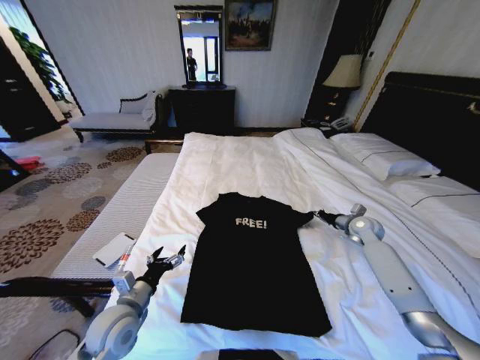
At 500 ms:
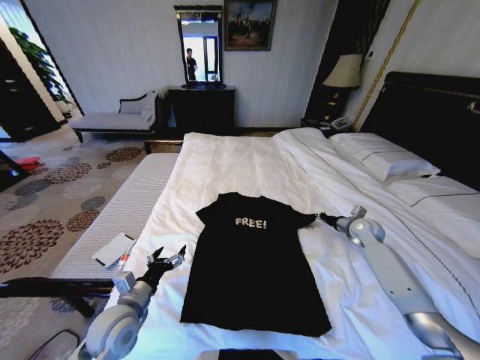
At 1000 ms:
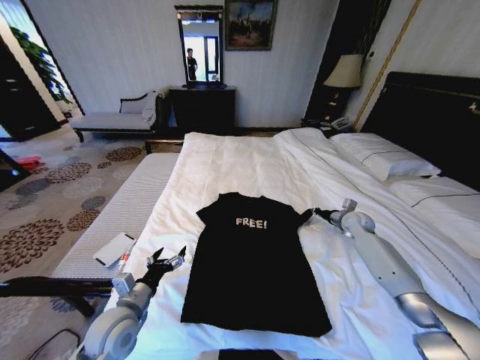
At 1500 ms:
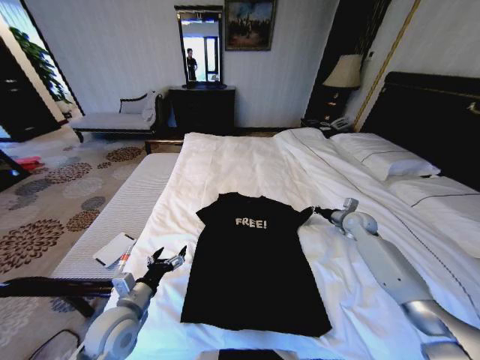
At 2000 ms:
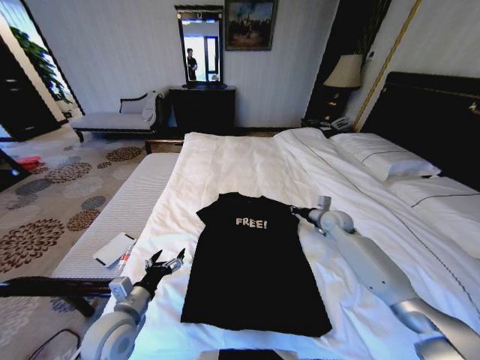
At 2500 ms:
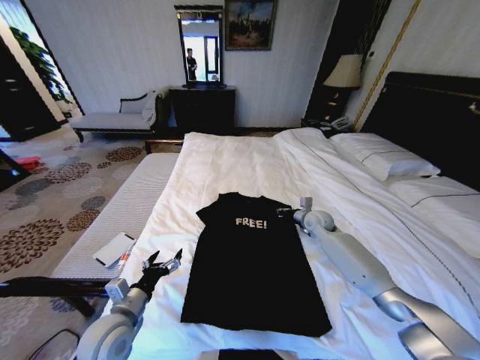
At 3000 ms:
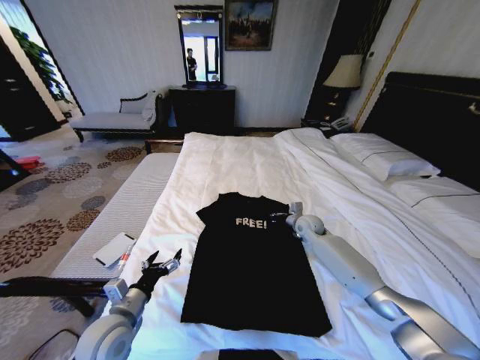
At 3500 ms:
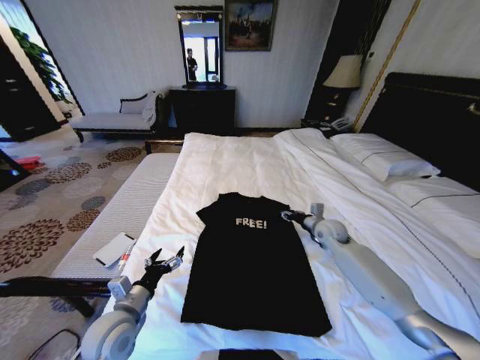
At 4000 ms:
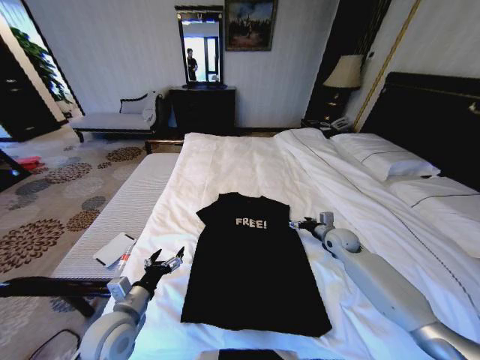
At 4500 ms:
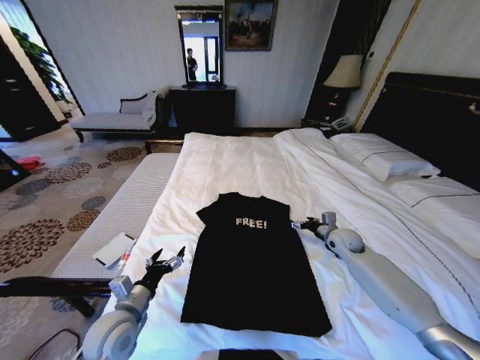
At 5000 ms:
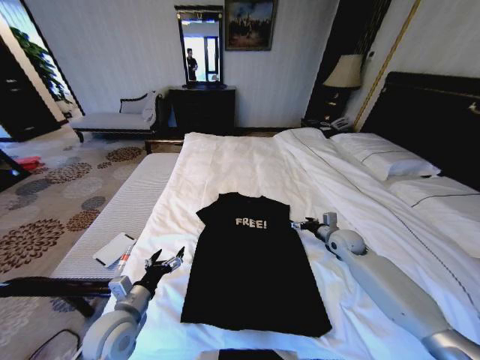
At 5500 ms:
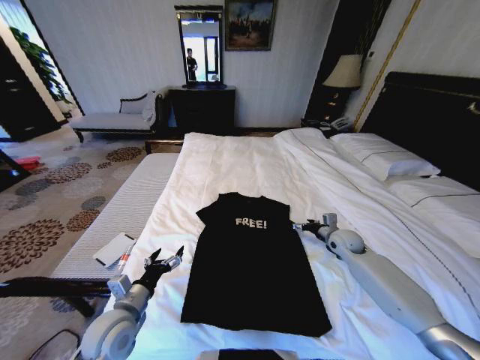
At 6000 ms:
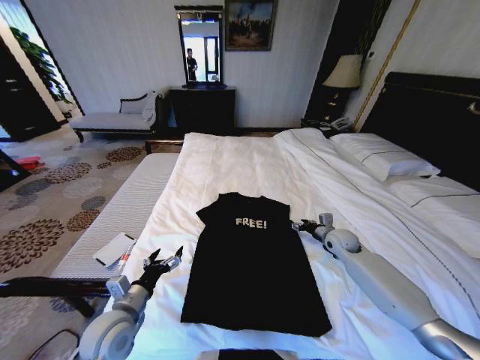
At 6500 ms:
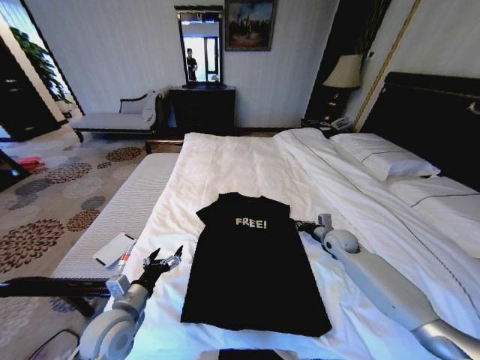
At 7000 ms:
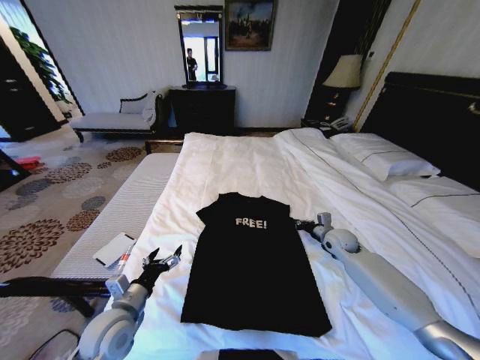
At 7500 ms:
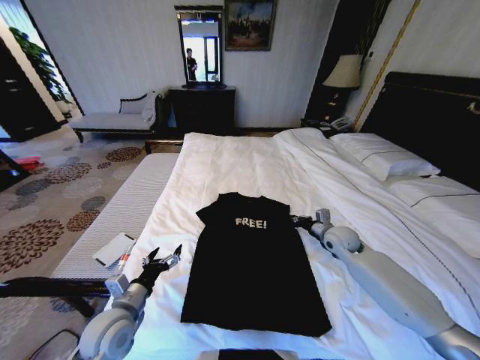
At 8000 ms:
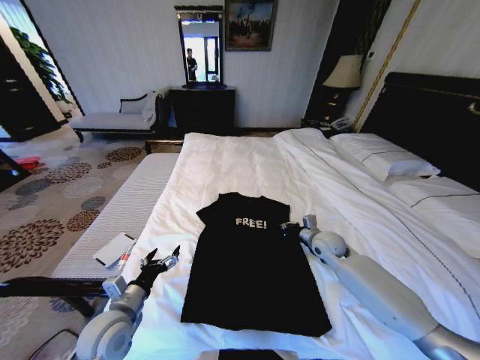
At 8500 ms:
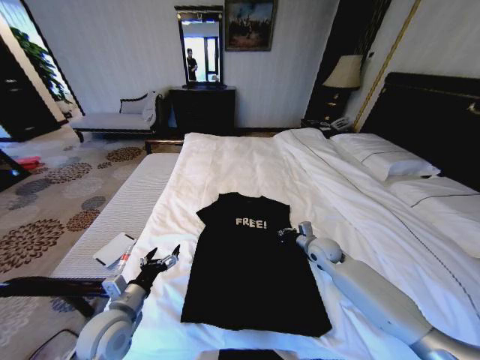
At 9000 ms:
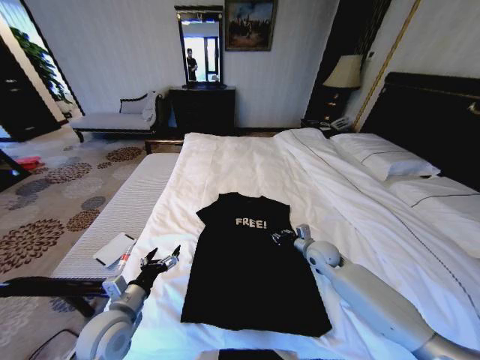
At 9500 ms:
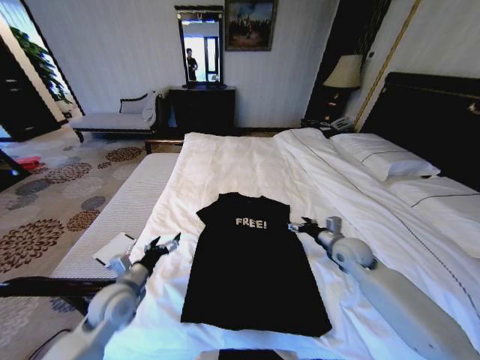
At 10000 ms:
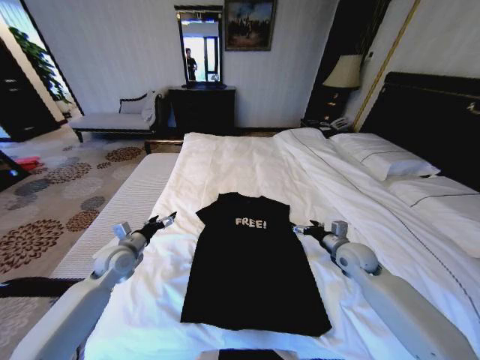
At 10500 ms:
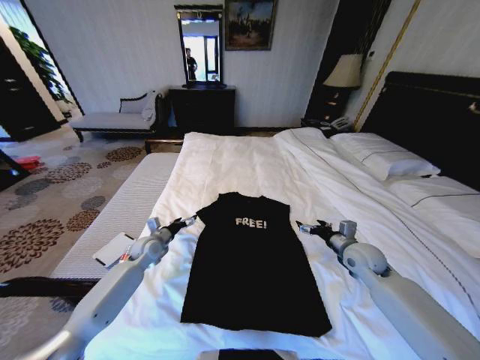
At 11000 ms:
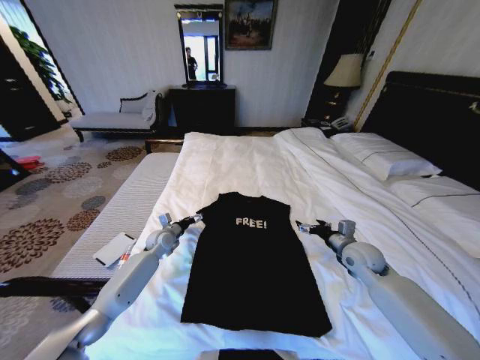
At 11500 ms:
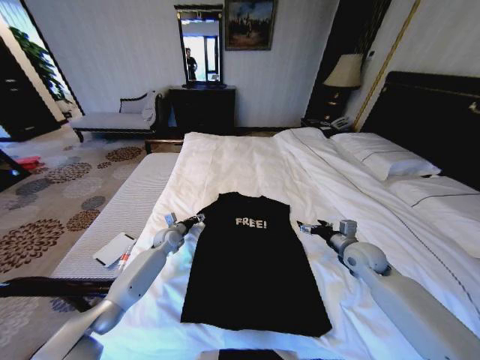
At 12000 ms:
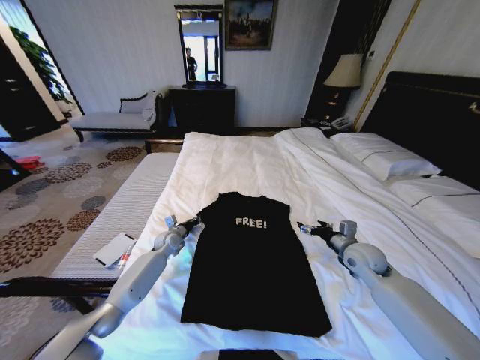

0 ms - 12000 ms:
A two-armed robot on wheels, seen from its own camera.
Task of the whole recording: Fold the clothes on the bed.
0 ms - 2000 ms: The right gripper moves to the left, about 10 cm.
2000 ms - 4000 ms: The right gripper goes to the left and returns, some 5 cm each way, and opens its fingers.
4000 ms - 6000 ms: The grippers make only small movements.
6000 ms - 8000 ms: The right gripper shifts about 5 cm to the left, and closes its fingers.
8000 ms - 10000 ms: The right gripper is displaced backward and to the right by about 5 cm, and opens up. Meanwhile the left gripper is displaced forward by about 15 cm.
10000 ms - 12000 ms: The left gripper moves forward, downward and to the right, about 20 cm, and closes up.

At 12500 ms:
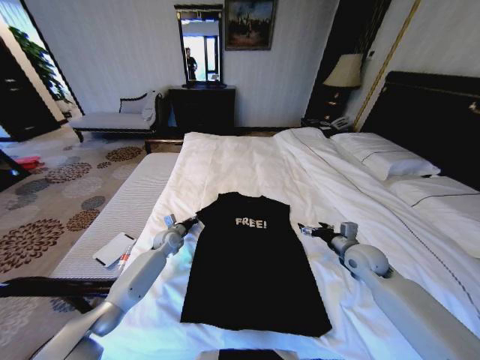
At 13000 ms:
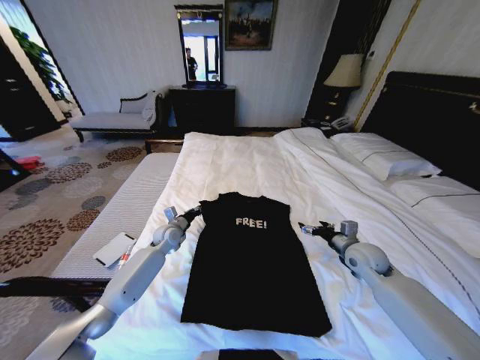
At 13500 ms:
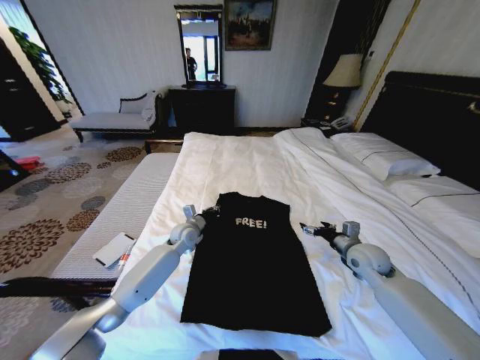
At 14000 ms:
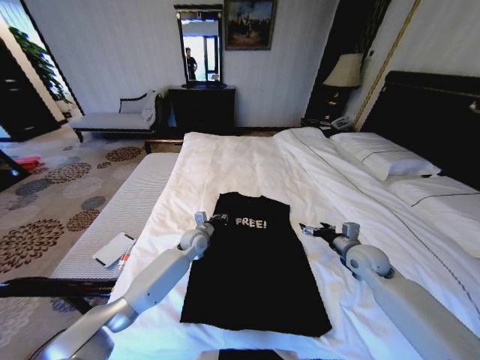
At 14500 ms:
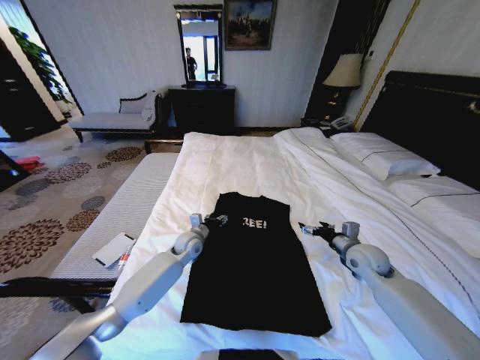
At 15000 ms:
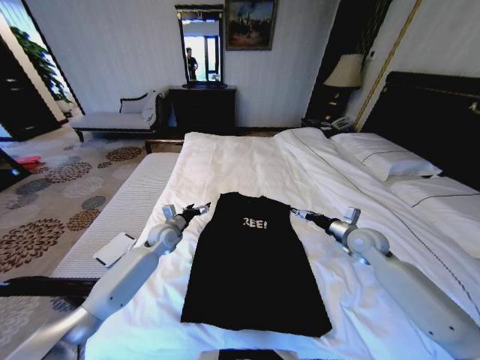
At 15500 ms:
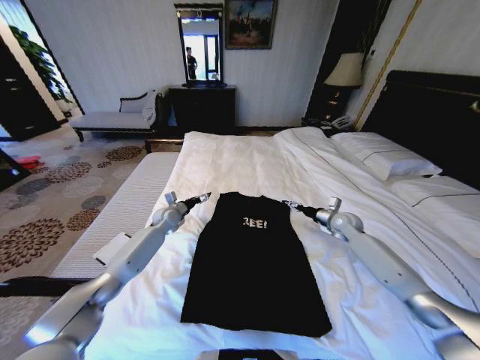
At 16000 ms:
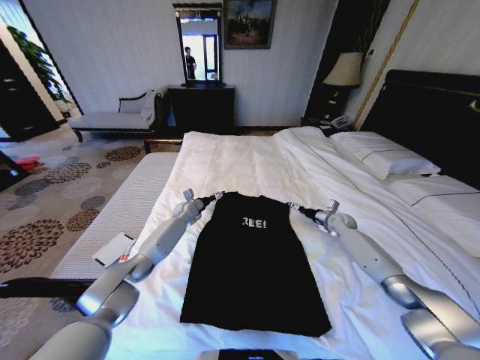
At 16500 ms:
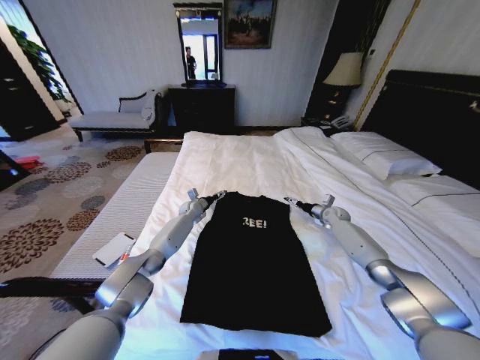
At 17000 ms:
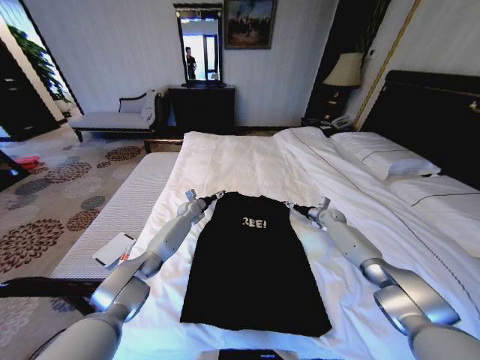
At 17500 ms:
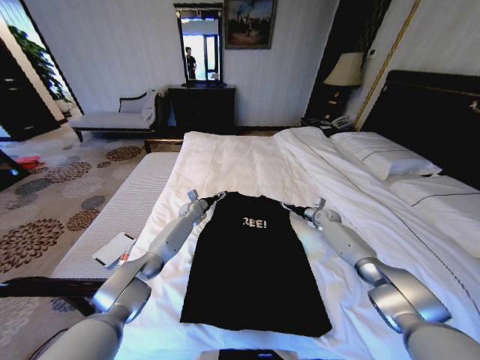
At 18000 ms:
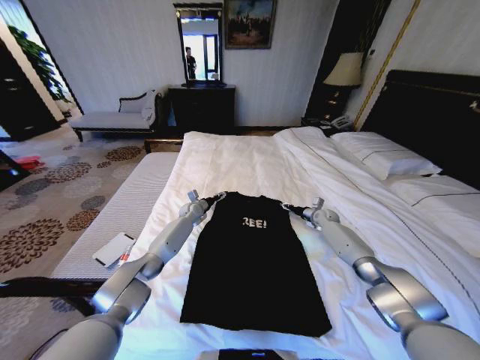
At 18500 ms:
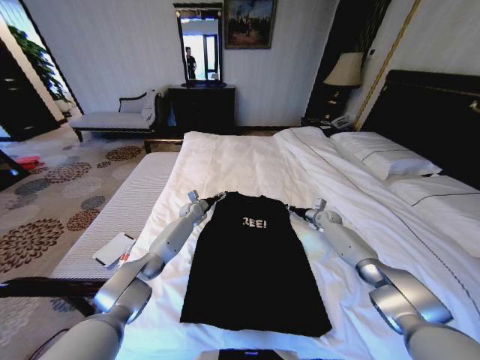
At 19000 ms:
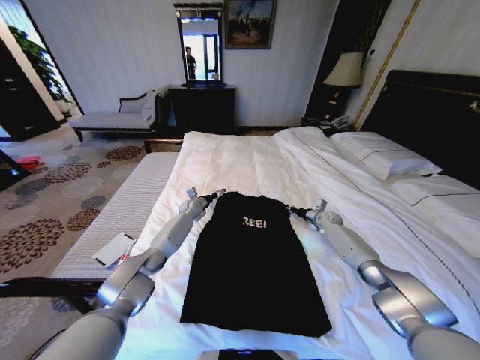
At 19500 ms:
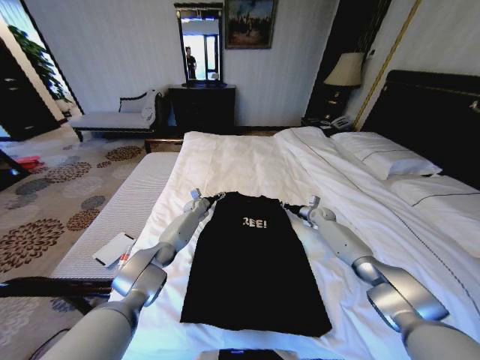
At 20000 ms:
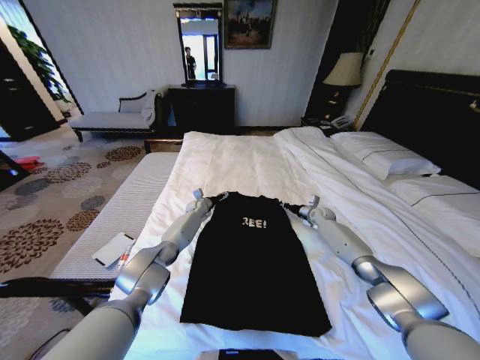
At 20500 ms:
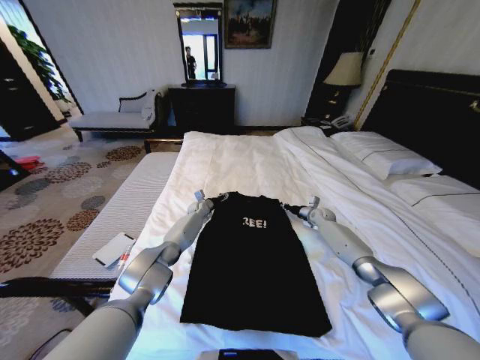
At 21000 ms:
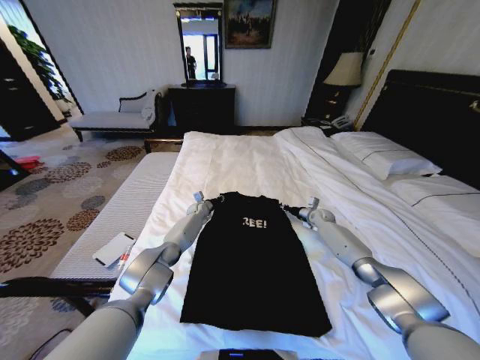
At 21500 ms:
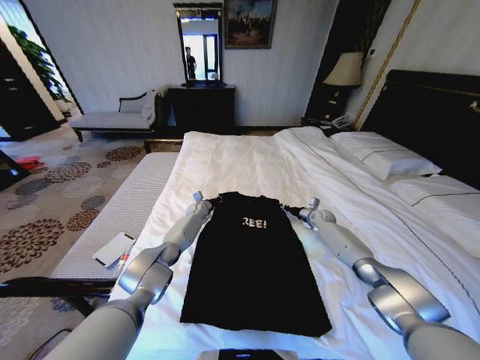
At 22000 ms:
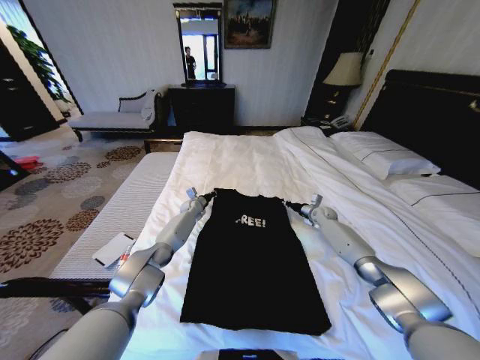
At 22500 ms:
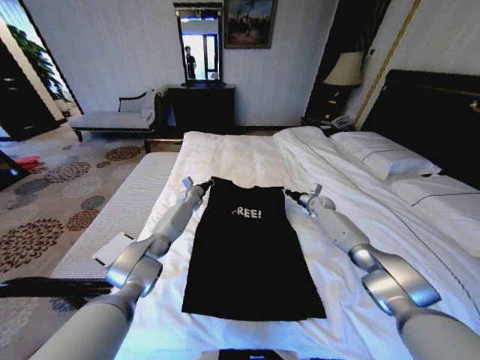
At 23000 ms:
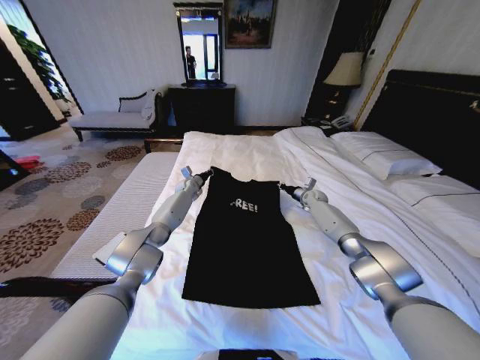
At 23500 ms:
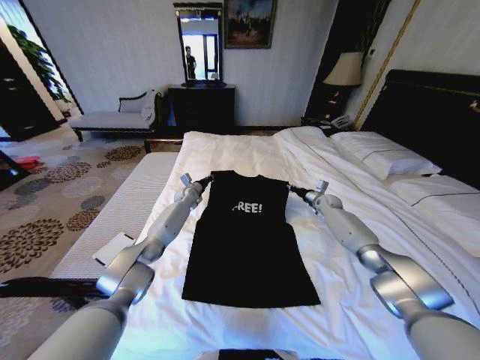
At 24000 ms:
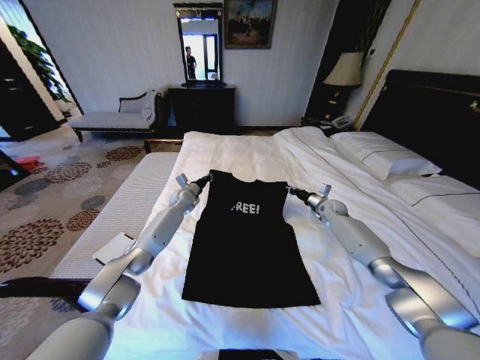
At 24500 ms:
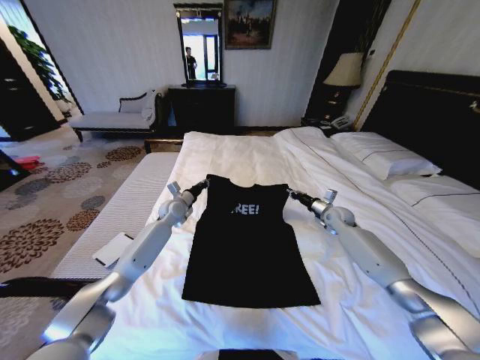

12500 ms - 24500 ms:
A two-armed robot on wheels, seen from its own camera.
Task of the whole recording: Fold the clothes on the bed.
12500 ms - 14500 ms: The left gripper heads to the right, covering roughly 10 cm, and opens.
14500 ms - 16500 ms: Both grippers travel together forward, approximately 20 cm. The left gripper opens its fingers.
16500 ms - 18500 ms: The right gripper closes its fingers.
18500 ms - 20500 ms: There are only small adjustments of the grippers.
20500 ms - 22500 ms: The left gripper travels upward by approximately 5 cm, and closes; the right gripper ends up about 5 cm from where it was.
22500 ms - 24500 ms: Both grippers move backward, some 10 cm.

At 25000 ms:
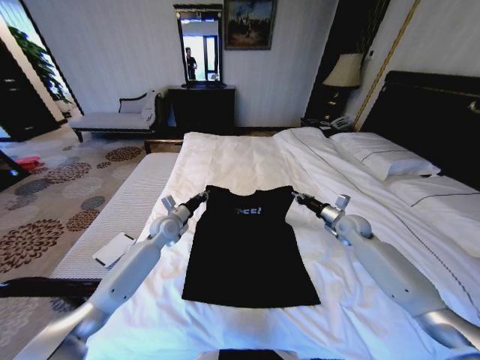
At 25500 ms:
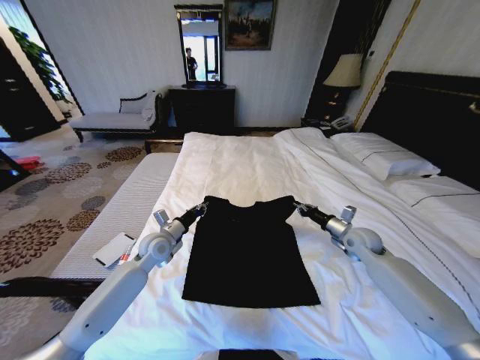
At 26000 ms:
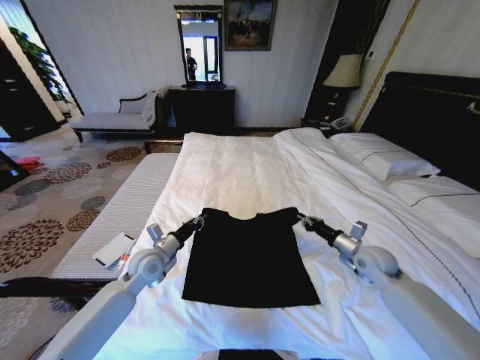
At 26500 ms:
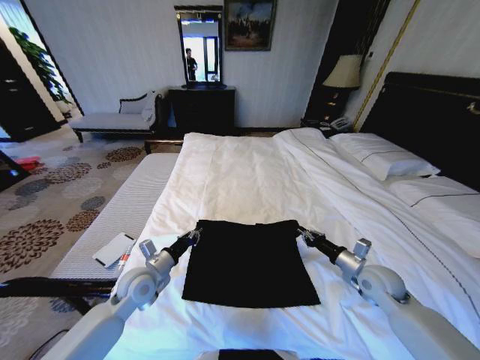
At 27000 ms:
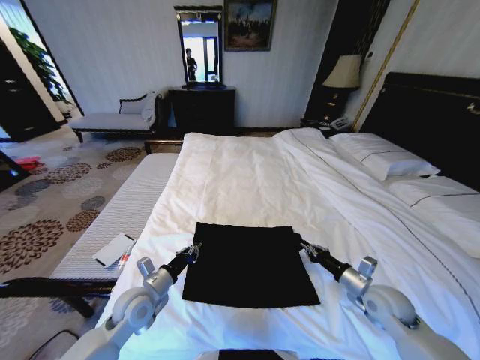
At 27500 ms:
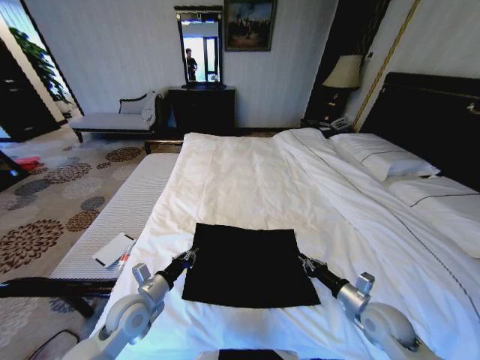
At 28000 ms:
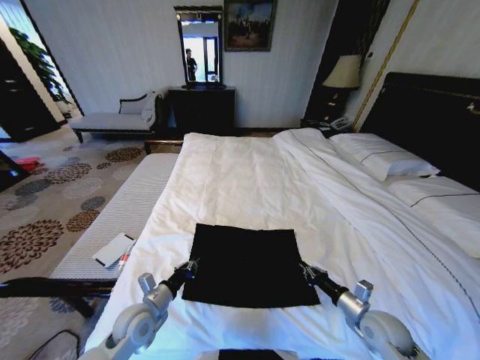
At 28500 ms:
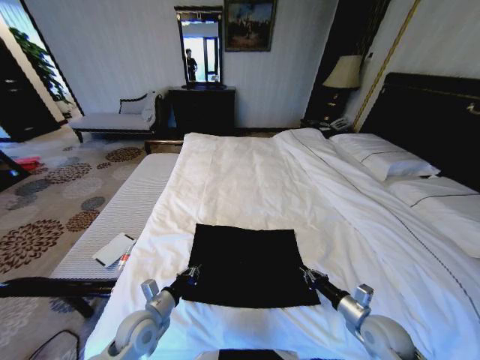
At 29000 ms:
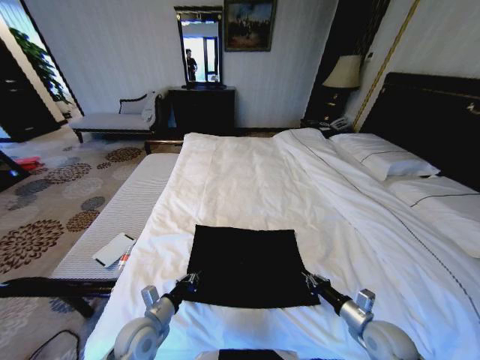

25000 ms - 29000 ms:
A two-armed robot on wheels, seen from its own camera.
Task of the whole recording: Fold the clothes on the bed.
25000 ms - 27000 ms: Both grippers travel together backward, approximately 20 cm.
27000 ms - 29000 ms: Both grippers travel together backward and downward, roughly 10 cm.
